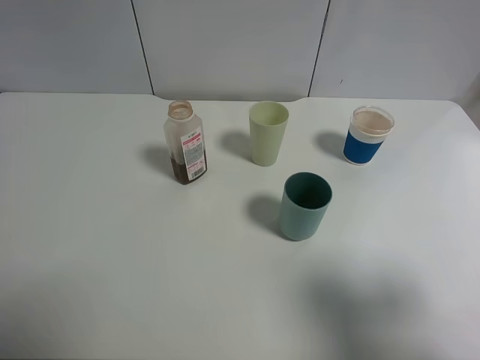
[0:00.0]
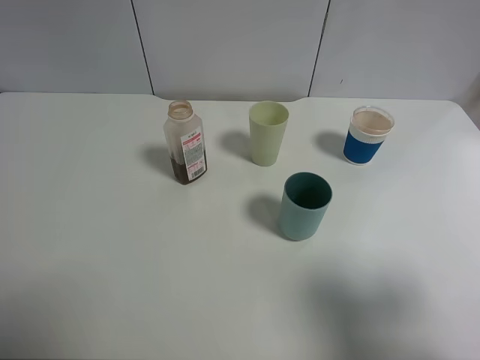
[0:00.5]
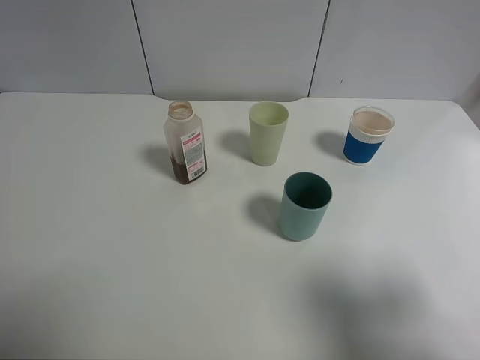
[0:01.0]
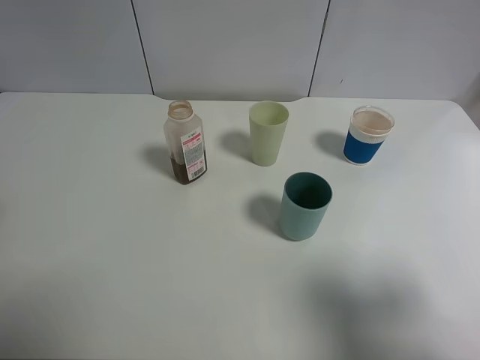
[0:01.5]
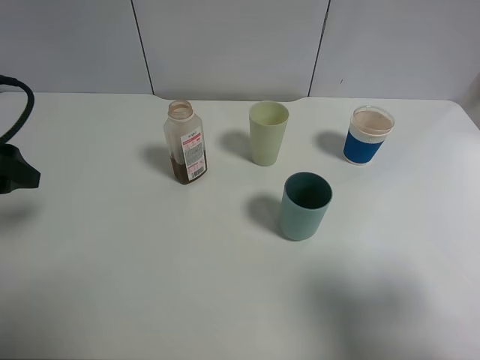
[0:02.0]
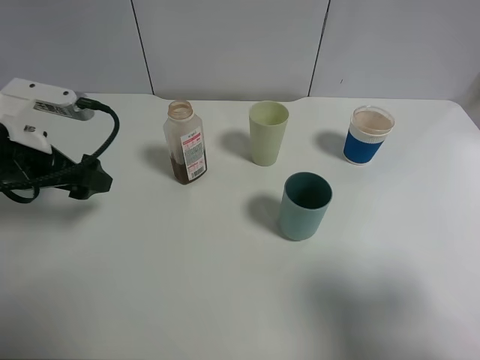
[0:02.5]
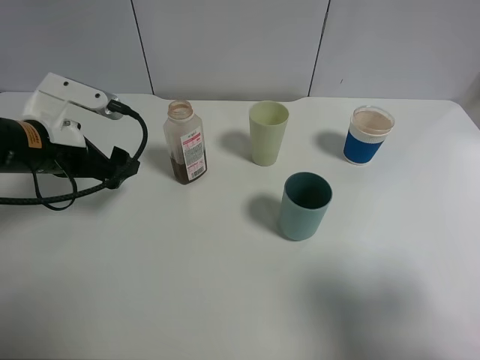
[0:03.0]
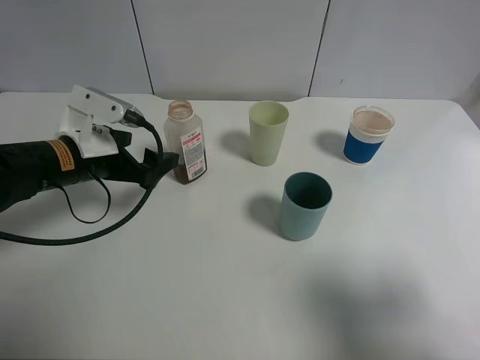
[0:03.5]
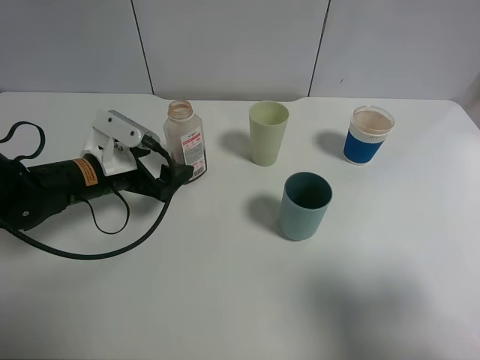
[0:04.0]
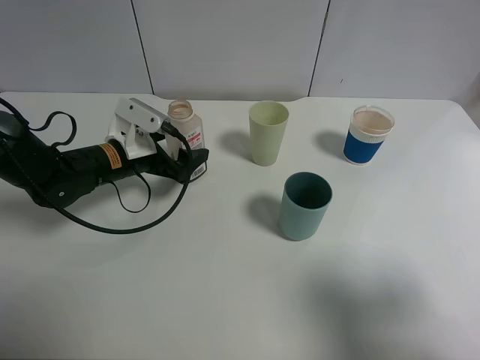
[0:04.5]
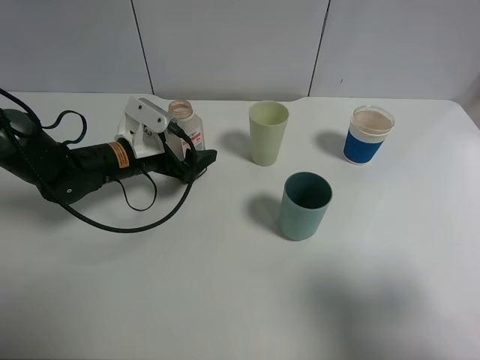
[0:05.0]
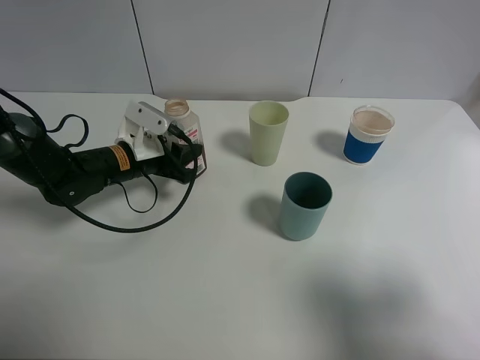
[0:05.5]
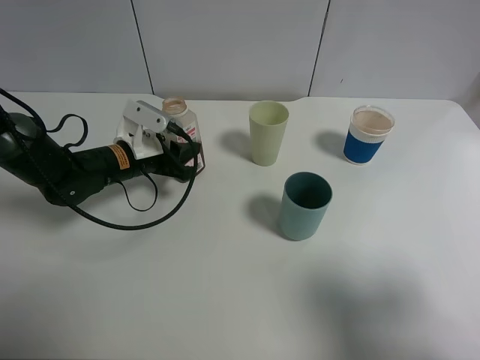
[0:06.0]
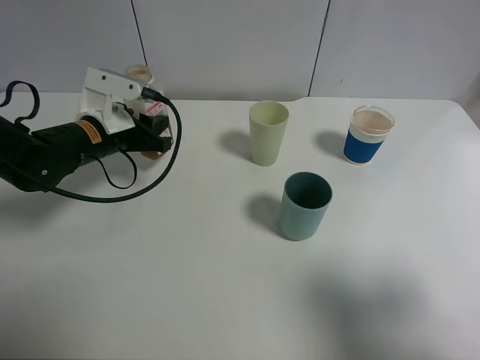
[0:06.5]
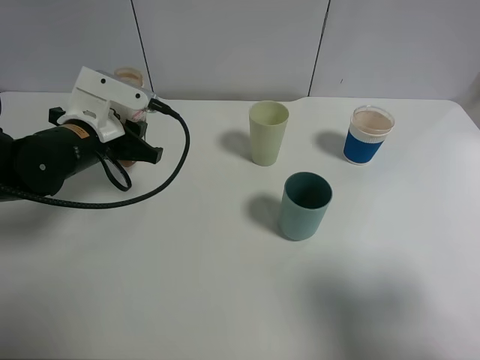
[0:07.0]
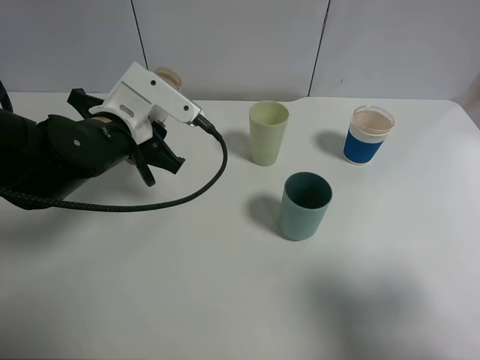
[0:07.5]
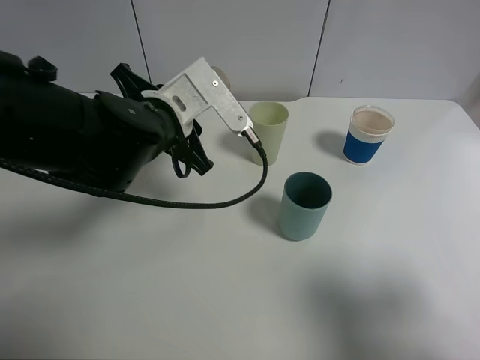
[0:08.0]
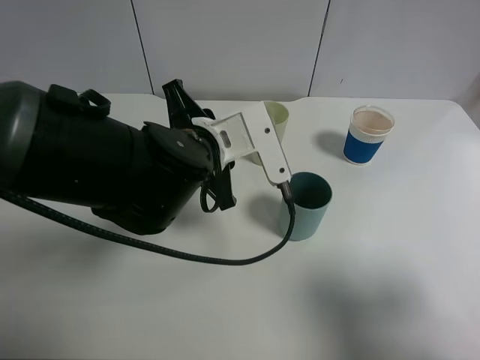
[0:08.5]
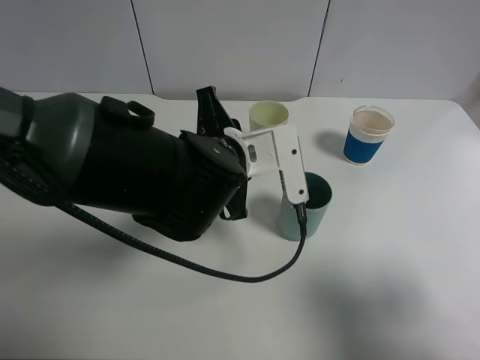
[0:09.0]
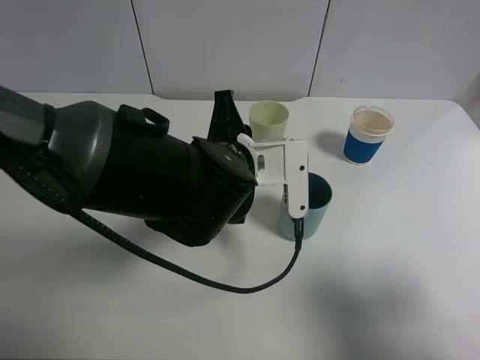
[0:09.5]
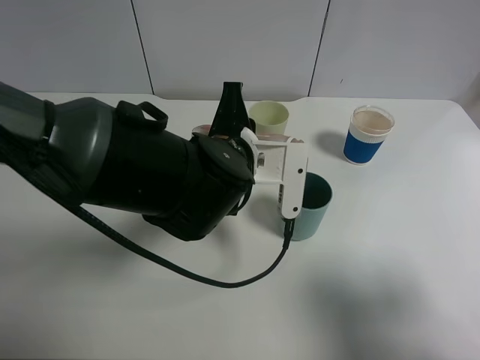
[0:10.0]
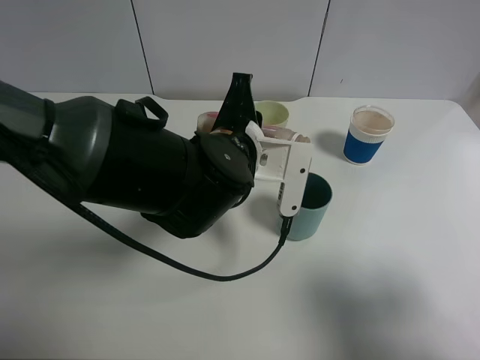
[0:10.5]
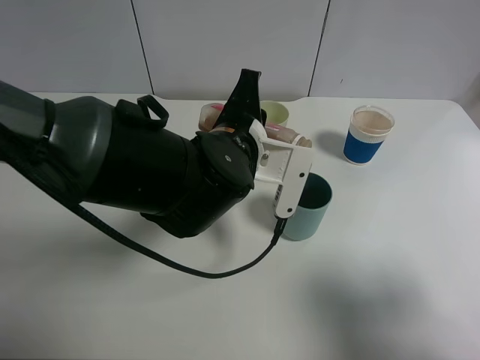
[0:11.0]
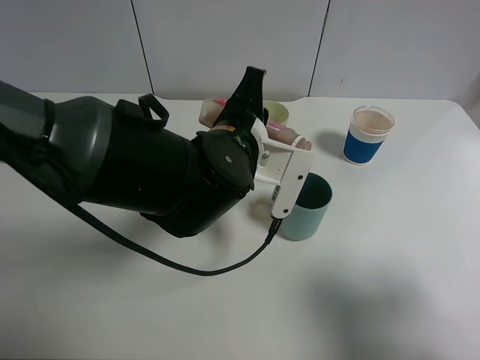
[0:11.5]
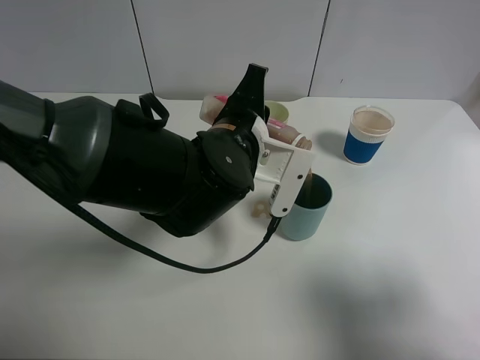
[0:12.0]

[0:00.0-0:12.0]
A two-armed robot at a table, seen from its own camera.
Task of the whole recording: use a clamp to hold the bottle of the drink, pour the beverage into a random cup, then clamp the cup containing the drink and pour the drink into another random cup.
Step, 0:00.0 to 0:06.5: Pick up the drink bottle with left gripper.
0:00.0 to 0:02.0: The left gripper goes approximately 20 cm forward.
0:02.0 to 0:04.0: The left gripper goes about 20 cm downward, to the right and forward.
0:04.0 to 0:06.0: The left gripper moves forward, roughly 5 cm, and closes up.
0:06.0 to 0:08.0: The left gripper goes about 15 cm upward, to the right and backward.
0:08.0 to 0:10.0: The left gripper heads to the right, covering about 10 cm.
0:10.0 to 0:12.0: The grippers make only small movements.

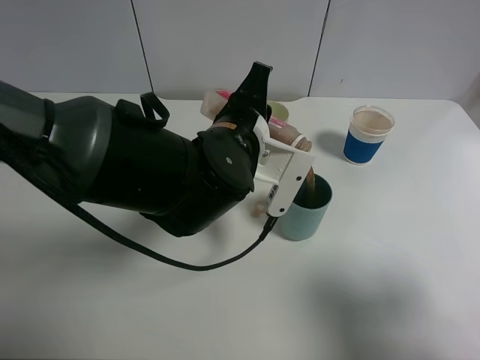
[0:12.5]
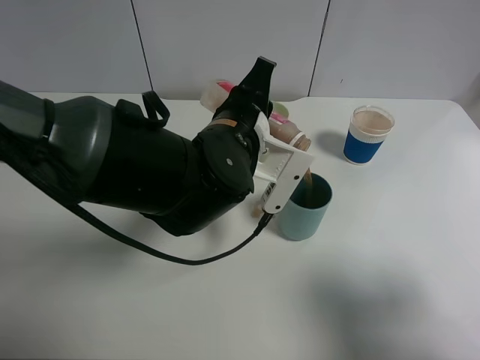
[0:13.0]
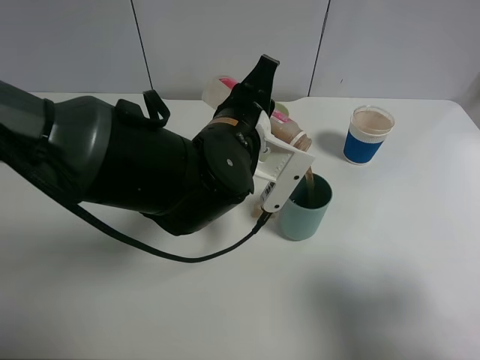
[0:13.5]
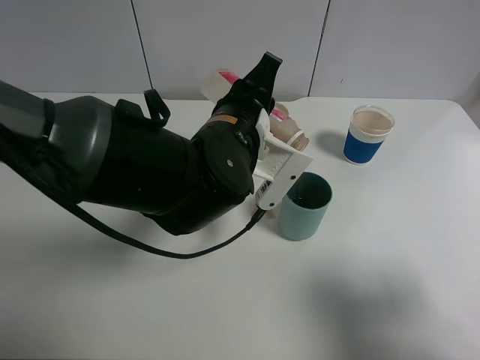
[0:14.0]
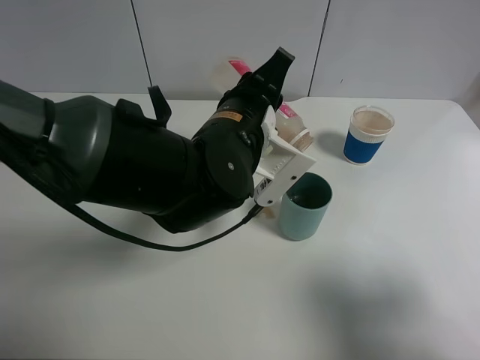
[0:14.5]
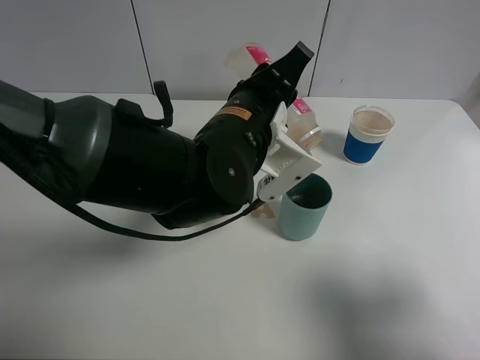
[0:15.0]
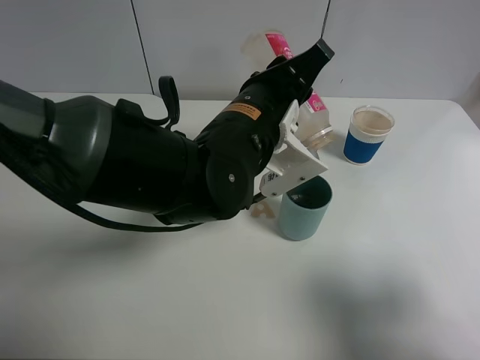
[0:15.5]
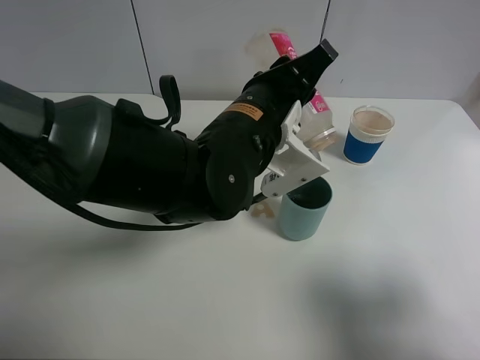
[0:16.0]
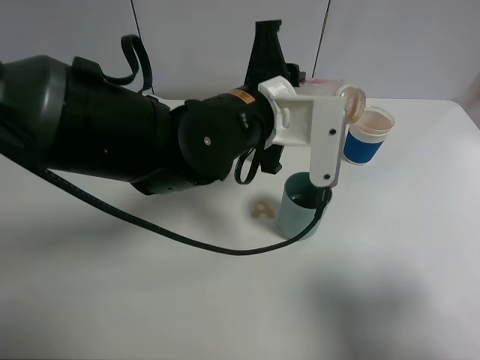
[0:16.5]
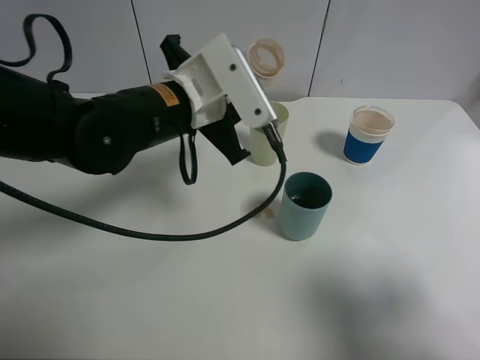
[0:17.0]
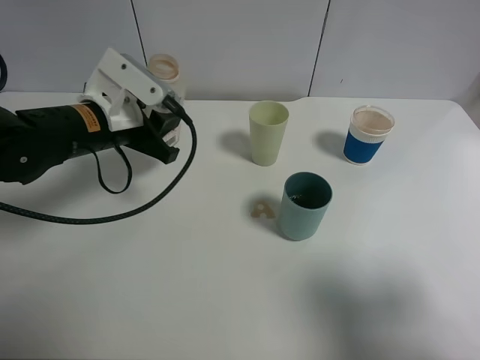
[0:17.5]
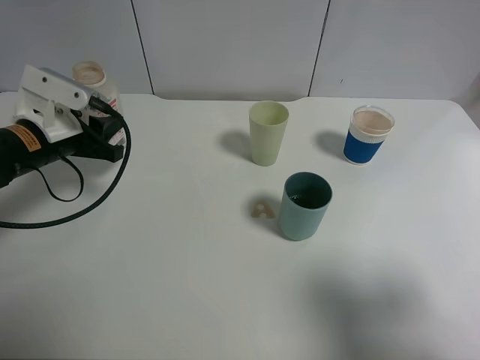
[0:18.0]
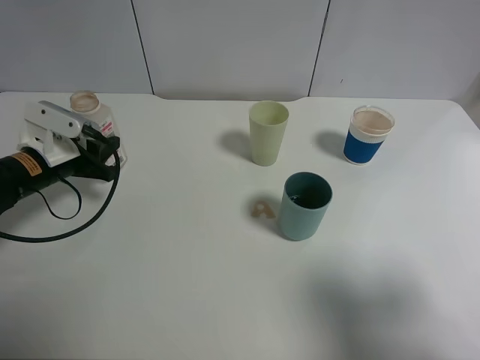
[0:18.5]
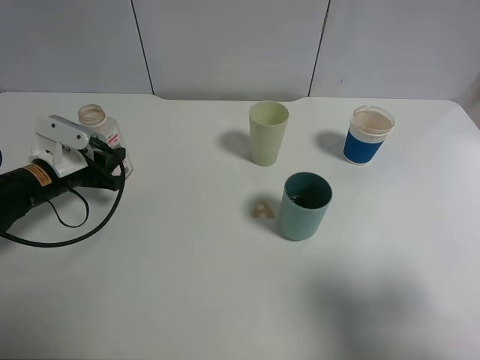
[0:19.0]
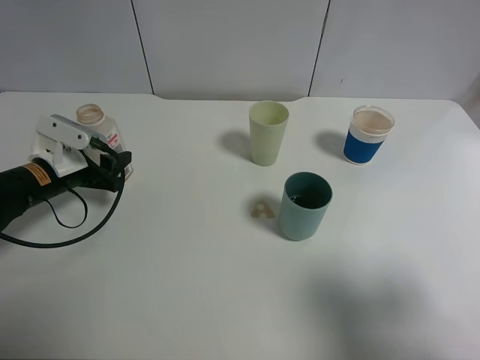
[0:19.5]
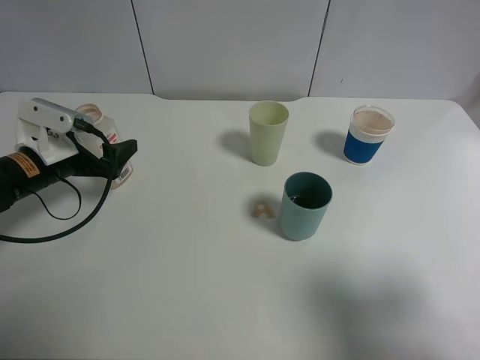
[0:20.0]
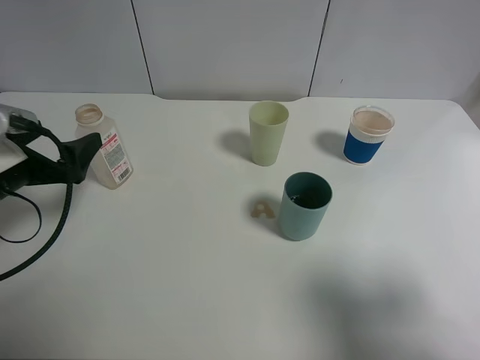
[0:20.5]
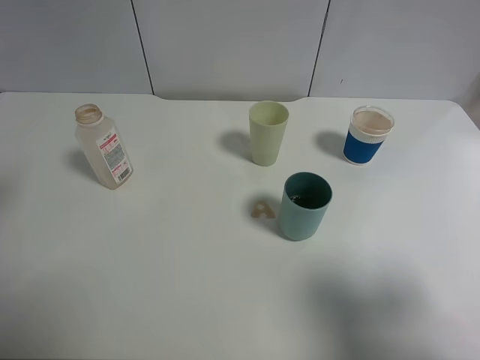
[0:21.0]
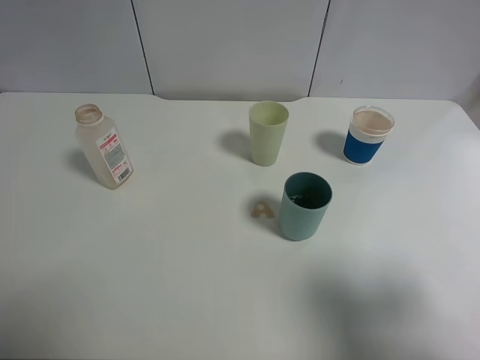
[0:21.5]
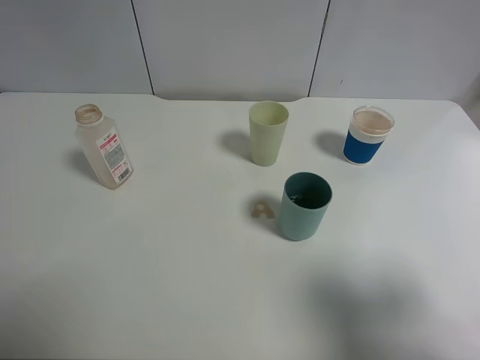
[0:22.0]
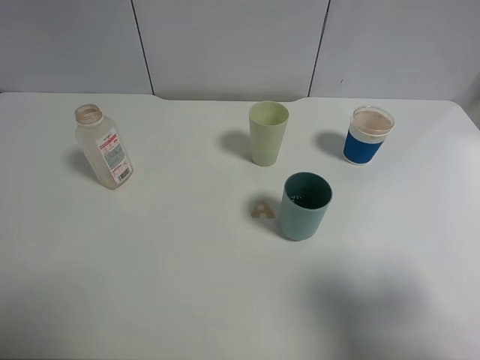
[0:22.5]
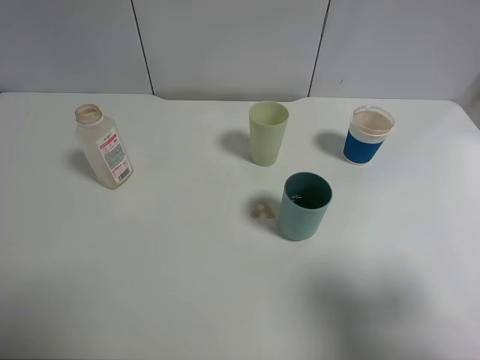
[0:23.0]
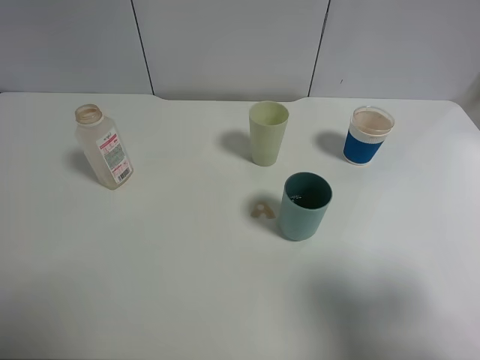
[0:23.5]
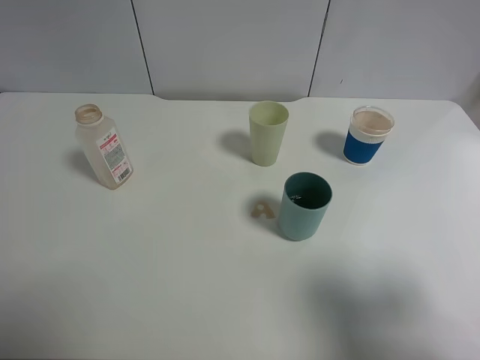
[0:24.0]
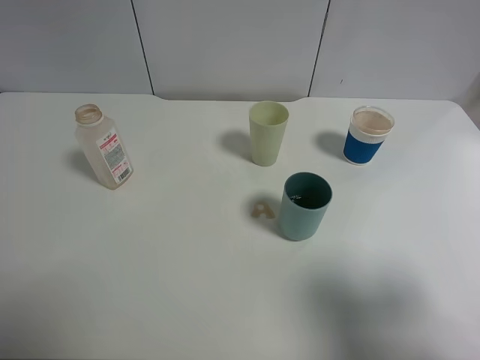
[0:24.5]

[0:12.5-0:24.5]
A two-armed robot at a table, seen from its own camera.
Task of the whole recording: use a clamp to hold the bottle of the drink, pour the beverage into a random cup, then clamp the cup containing the drink and pour the drink into another random cup.
Step, 0:12.5 to 0:16.5: Pour the drink into the blue plastic cup with left gripper.
Step, 0:17.0 to 0:20.5: Place the drink bottle on the table with left gripper.
0:12.5 to 0:14.5: The grippers stay close to where they were, moving slightly.
0:16.5 to 0:18.5: The left gripper travels to the left and downward by some 30 cm.
0:18.5 to 0:20.5: The left gripper travels backward and upward by some 10 cm, and opens.
0:20.5 to 0:22.5: The left gripper moves backward and upward, approximately 25 cm.

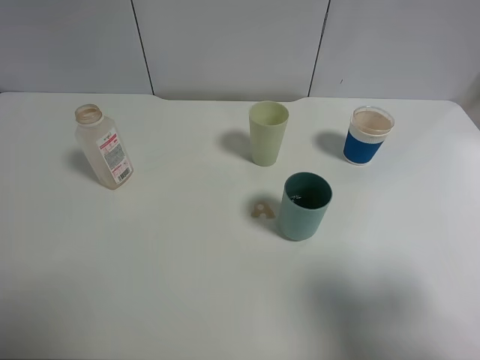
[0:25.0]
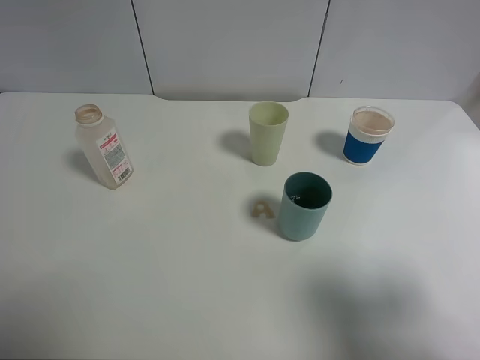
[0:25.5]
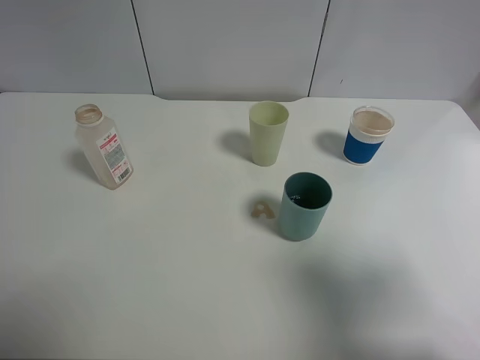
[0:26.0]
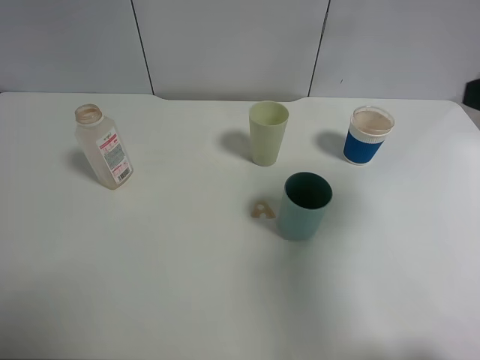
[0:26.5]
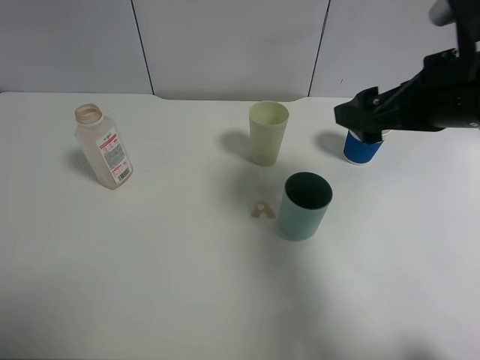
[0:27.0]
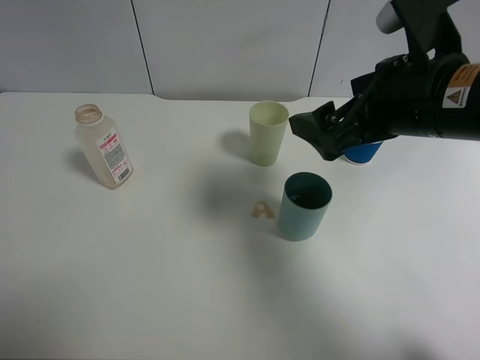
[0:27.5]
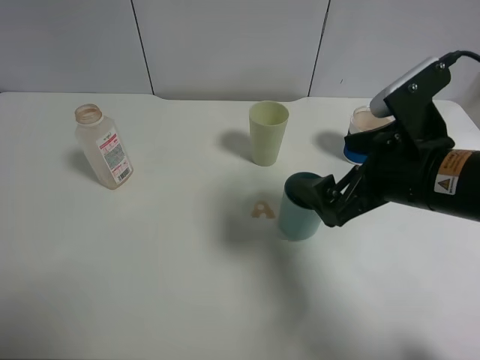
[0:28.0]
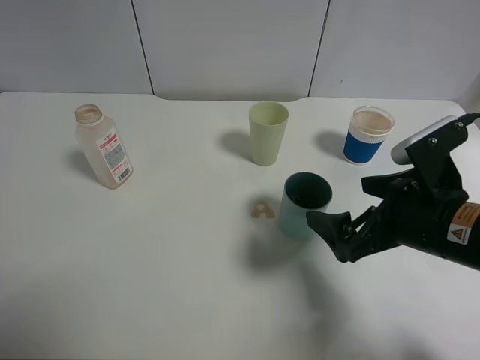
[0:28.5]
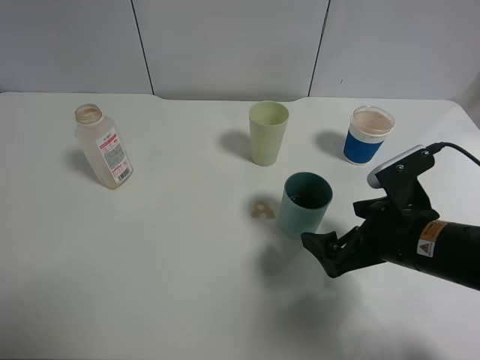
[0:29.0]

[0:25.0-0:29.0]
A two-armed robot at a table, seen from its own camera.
Task of the whole recording: use a clamp to hold the bottle of the drink, pour the beverage into a random cup, then clamp the cup containing the drink and pour the drink into another random cup.
0:25.0 to 0:27.0: The right gripper goes roughly 25 cm forward and to the left.
0:27.0 to 0:29.0: The right gripper shifts some 15 cm downward and backward.
